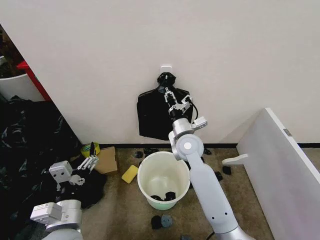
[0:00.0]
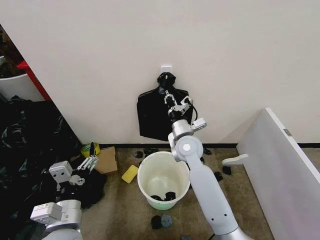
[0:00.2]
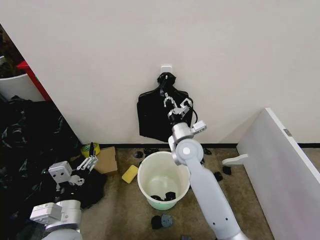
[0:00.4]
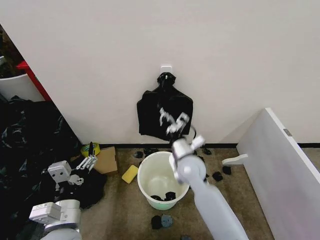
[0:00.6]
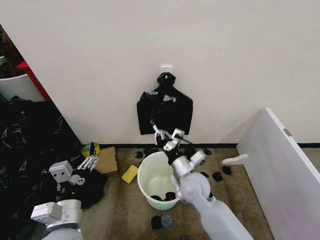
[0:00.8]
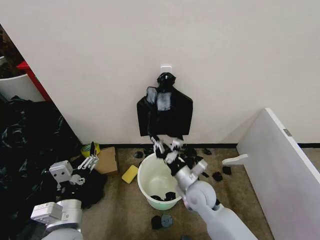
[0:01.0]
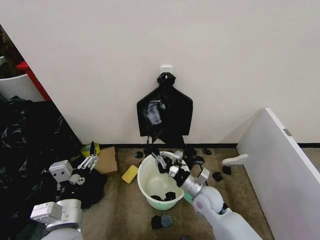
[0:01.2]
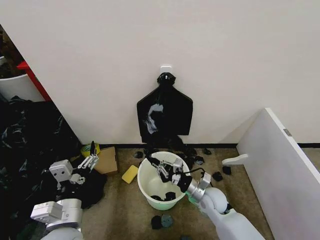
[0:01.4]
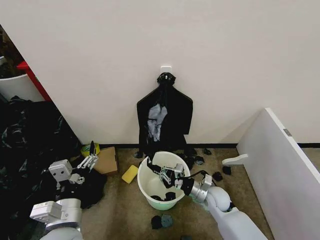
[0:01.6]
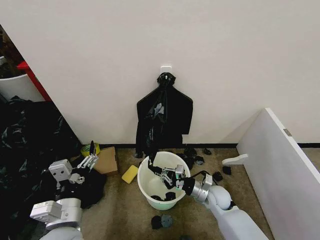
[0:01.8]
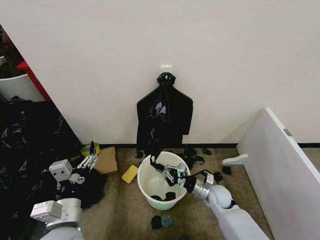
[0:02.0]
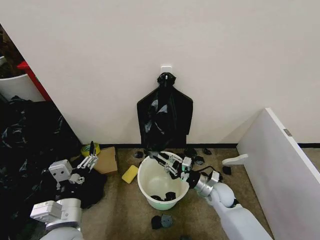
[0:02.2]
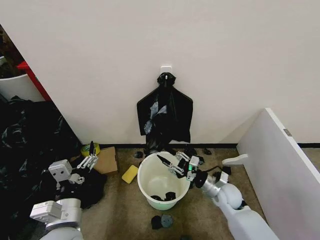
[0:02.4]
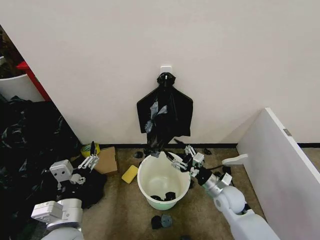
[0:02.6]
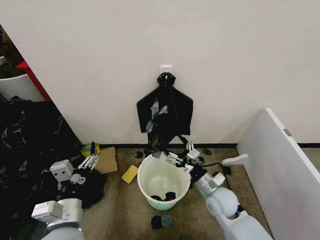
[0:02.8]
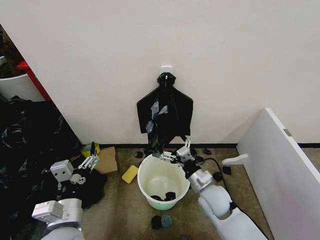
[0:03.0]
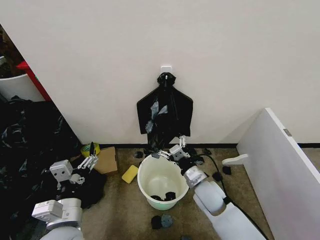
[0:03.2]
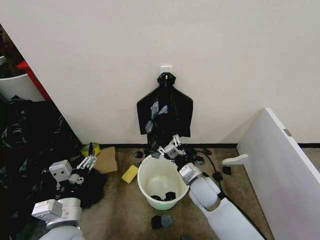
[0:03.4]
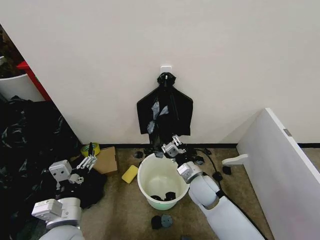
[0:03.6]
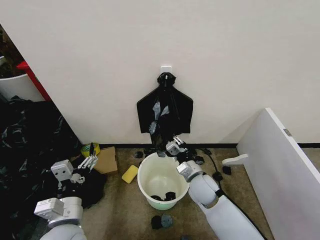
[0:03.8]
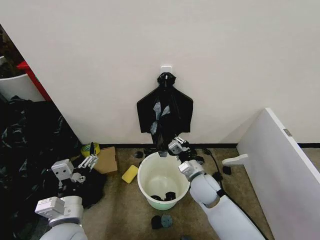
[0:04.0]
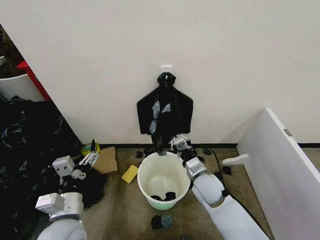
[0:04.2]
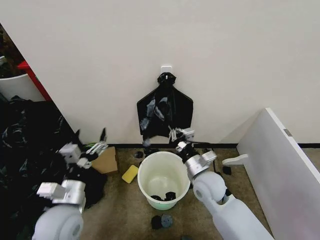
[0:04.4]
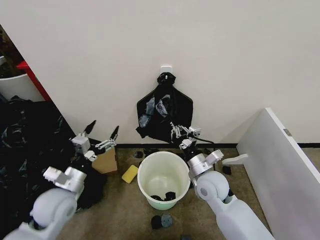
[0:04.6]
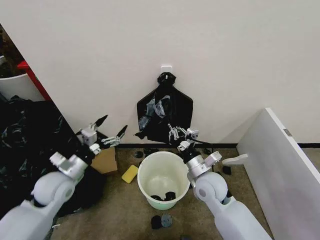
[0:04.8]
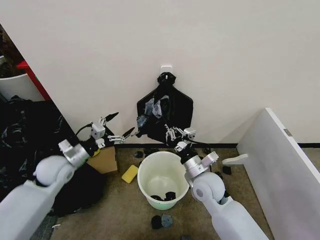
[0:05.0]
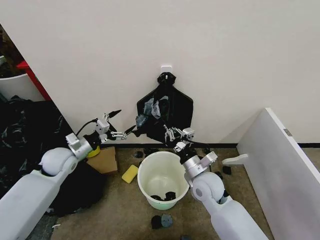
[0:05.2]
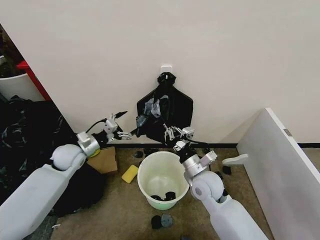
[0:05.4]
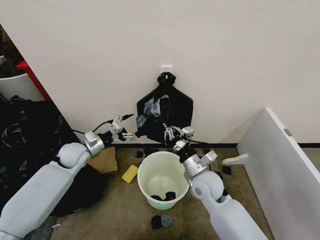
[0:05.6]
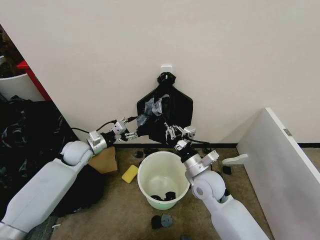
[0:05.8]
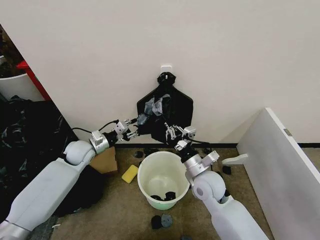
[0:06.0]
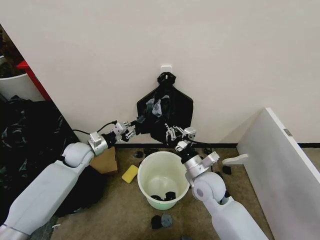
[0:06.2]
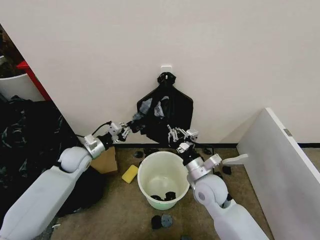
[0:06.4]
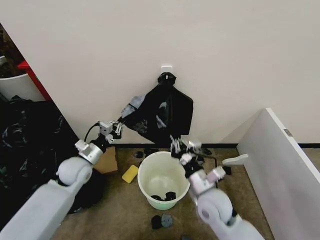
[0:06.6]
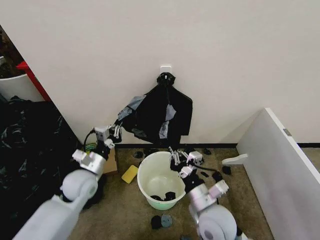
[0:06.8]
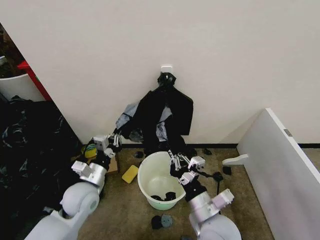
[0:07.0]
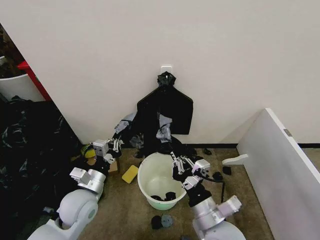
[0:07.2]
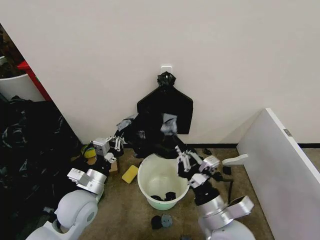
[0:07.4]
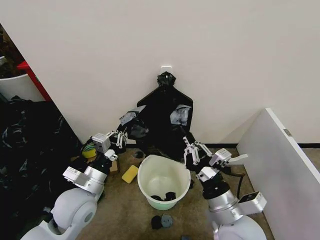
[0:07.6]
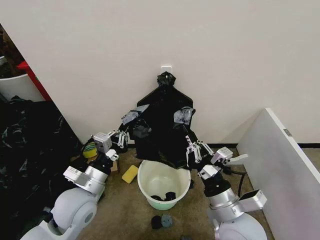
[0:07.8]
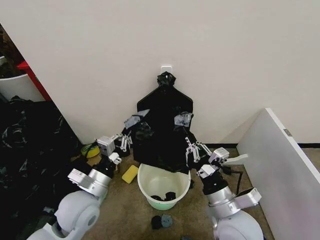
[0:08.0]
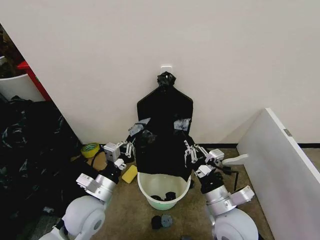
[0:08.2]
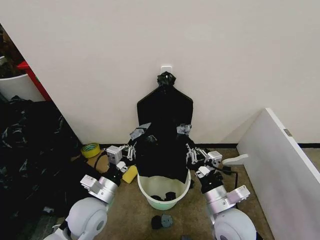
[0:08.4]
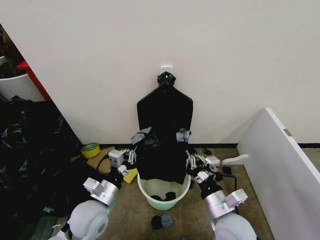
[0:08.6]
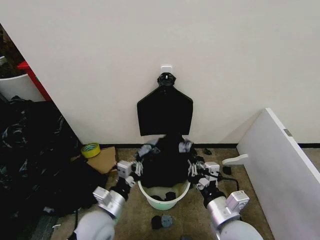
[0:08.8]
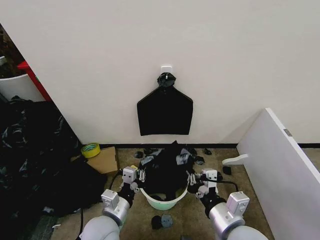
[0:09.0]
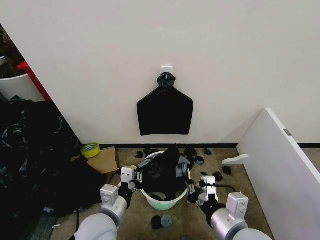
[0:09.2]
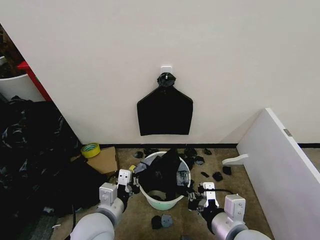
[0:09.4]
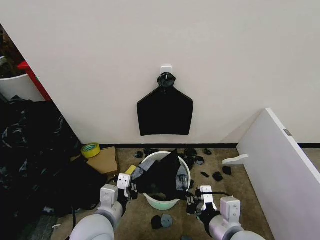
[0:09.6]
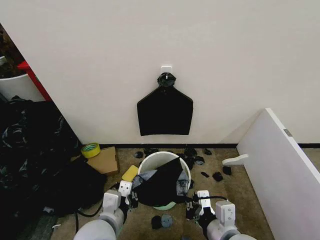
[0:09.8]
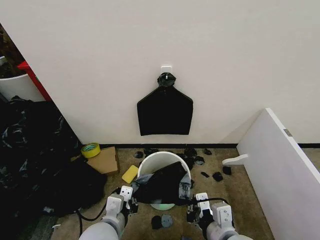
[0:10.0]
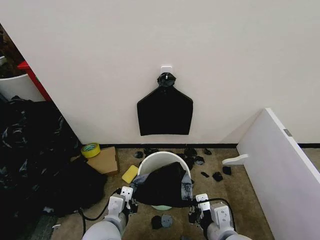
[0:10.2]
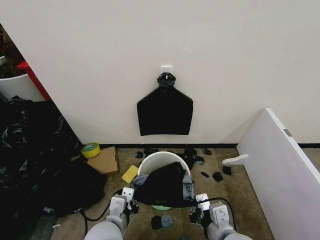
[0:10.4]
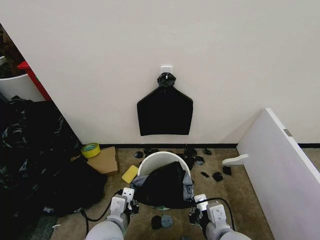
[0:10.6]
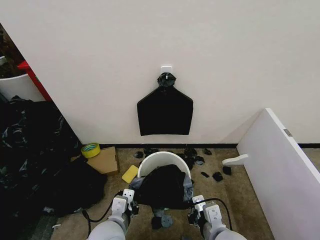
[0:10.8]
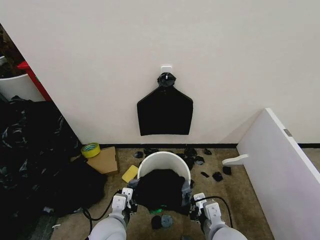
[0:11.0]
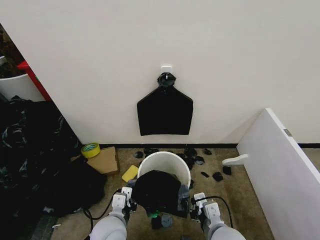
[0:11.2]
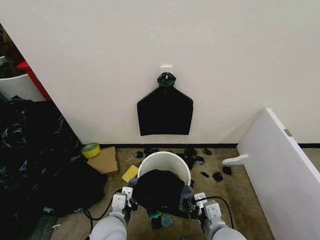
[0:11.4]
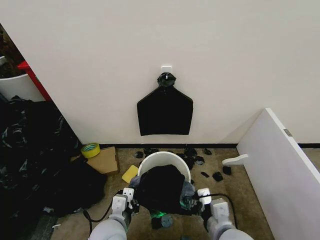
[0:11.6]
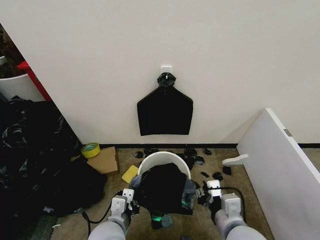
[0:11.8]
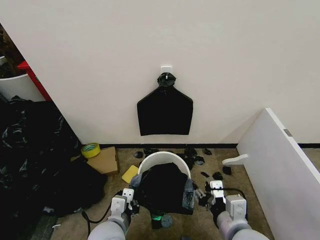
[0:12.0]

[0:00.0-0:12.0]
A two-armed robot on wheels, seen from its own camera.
Task of the whole recording: Place the garbage bag over the trash bin.
0:00.0 to 0:01.6: The right gripper shifts approximately 25 cm downward, to the right and backward.
0:01.6 to 0:03.0: The right gripper moves upward, some 5 cm, and opens its fingers.
0:03.0 to 0:04.4: The right gripper ends up about 5 cm from where it was, and closes up, while the left gripper moves approximately 5 cm.
0:04.4 to 0:06.0: The left gripper shifts about 25 cm forward, and closes its fingers.
0:06.0 to 0:07.6: The right gripper travels backward and upward by some 15 cm. Meanwhile the left gripper moves backward and to the right, approximately 20 cm, and closes.
0:07.6 to 0:09.0: The left gripper moves downward and to the right, some 10 cm.
0:10.4 to 0:12.0: The right gripper goes downward and returns, about 5 cm each way, and opens its fingers.

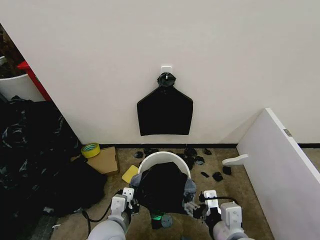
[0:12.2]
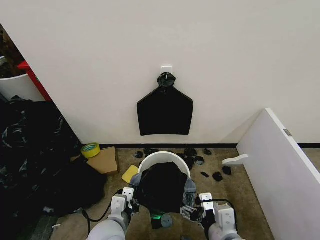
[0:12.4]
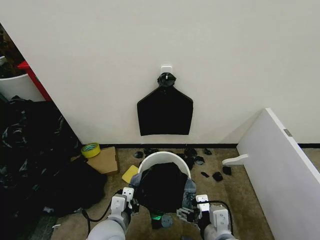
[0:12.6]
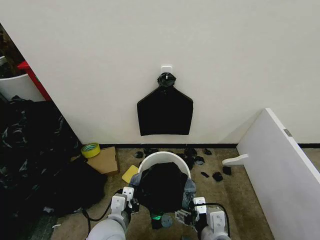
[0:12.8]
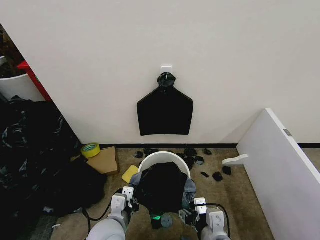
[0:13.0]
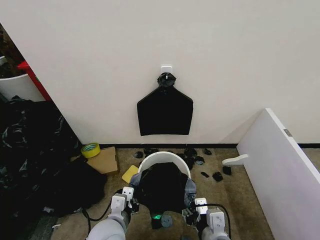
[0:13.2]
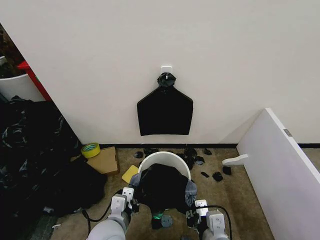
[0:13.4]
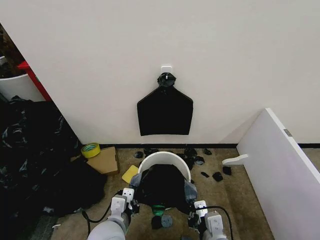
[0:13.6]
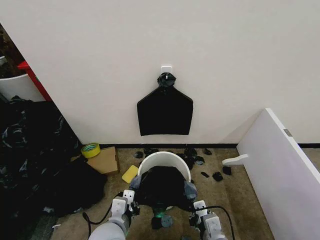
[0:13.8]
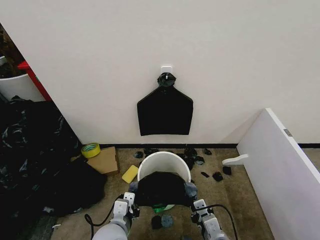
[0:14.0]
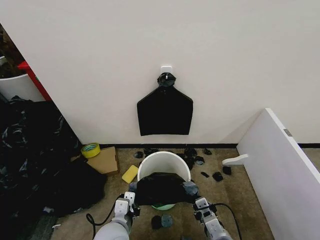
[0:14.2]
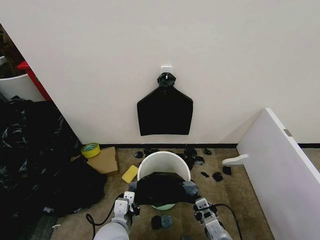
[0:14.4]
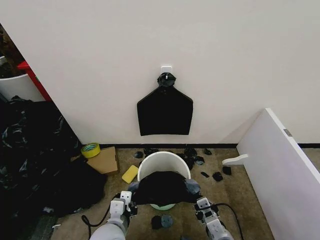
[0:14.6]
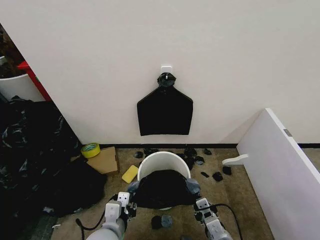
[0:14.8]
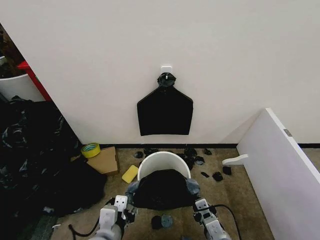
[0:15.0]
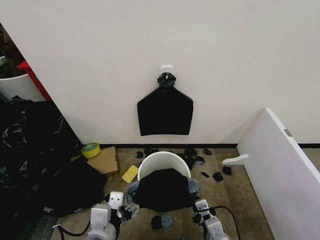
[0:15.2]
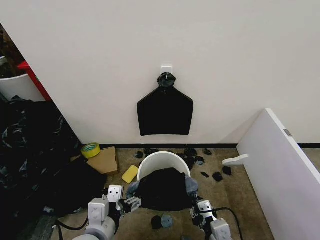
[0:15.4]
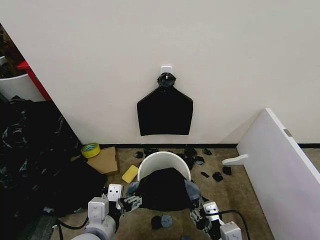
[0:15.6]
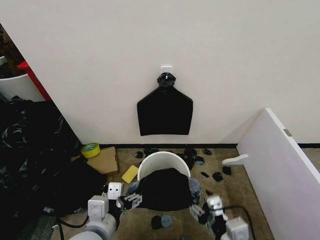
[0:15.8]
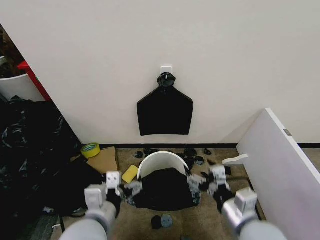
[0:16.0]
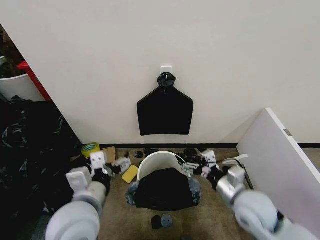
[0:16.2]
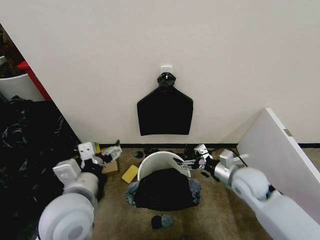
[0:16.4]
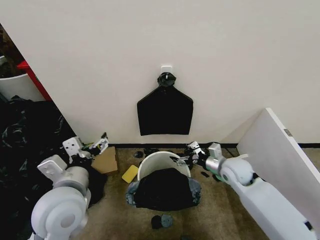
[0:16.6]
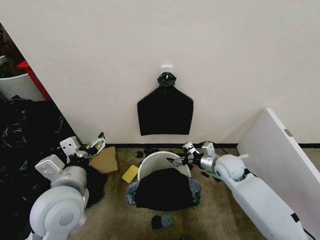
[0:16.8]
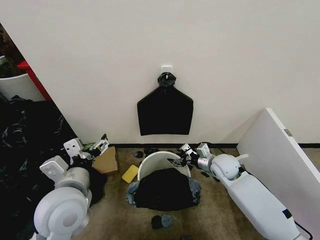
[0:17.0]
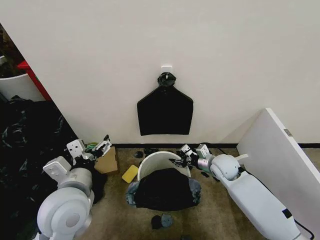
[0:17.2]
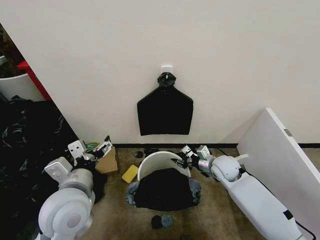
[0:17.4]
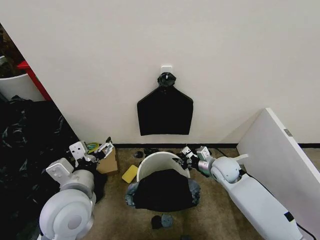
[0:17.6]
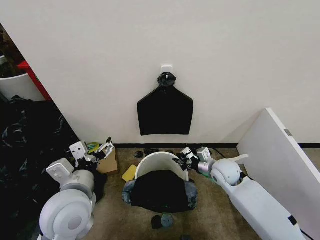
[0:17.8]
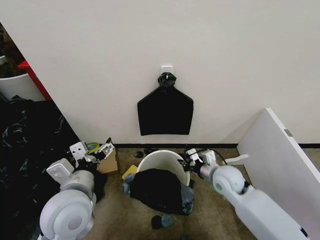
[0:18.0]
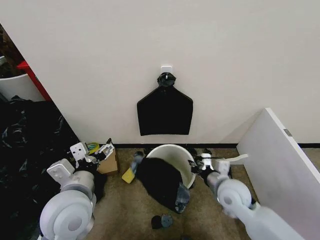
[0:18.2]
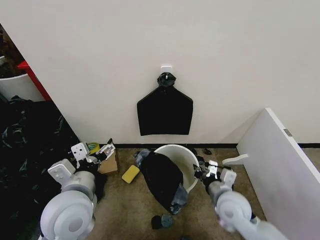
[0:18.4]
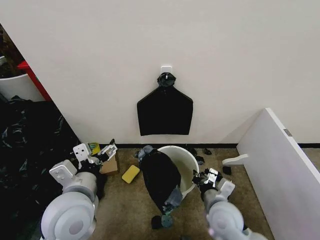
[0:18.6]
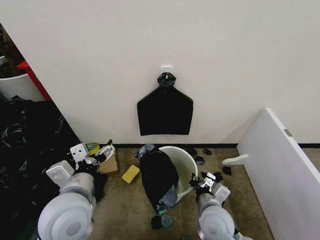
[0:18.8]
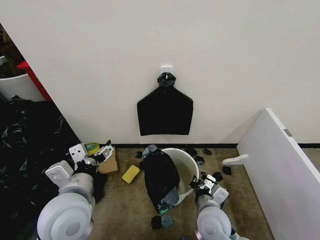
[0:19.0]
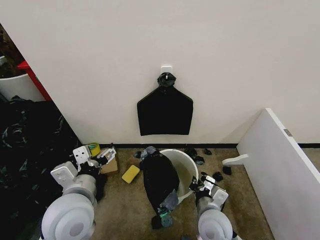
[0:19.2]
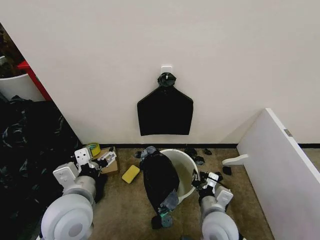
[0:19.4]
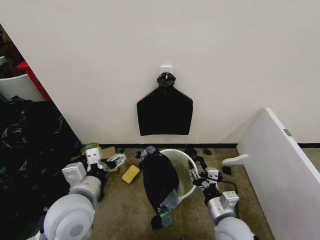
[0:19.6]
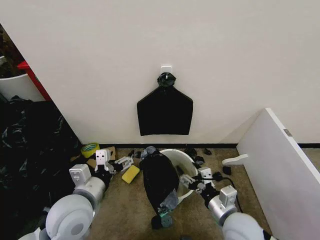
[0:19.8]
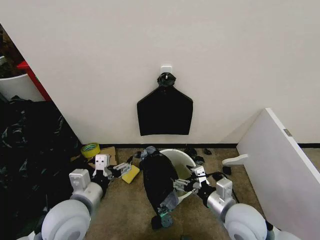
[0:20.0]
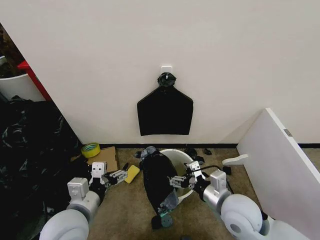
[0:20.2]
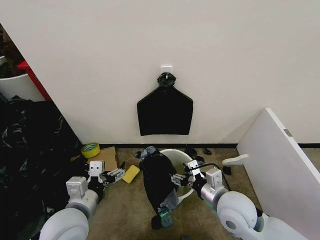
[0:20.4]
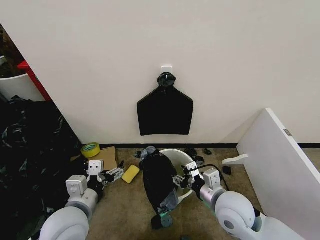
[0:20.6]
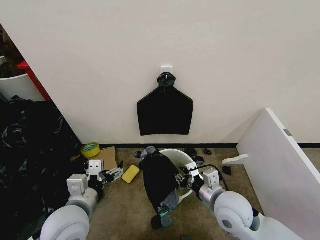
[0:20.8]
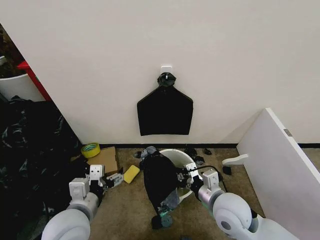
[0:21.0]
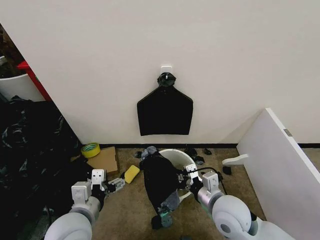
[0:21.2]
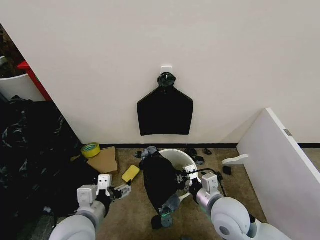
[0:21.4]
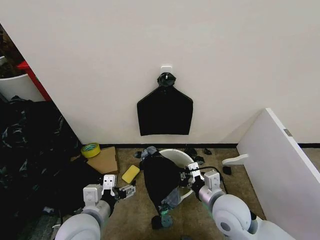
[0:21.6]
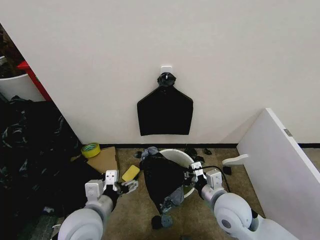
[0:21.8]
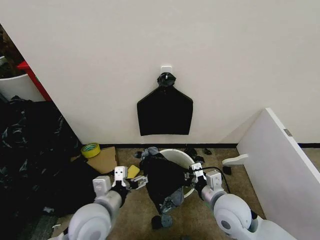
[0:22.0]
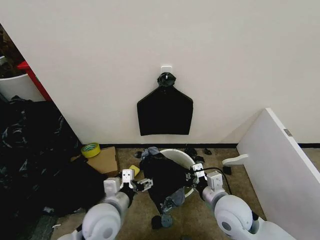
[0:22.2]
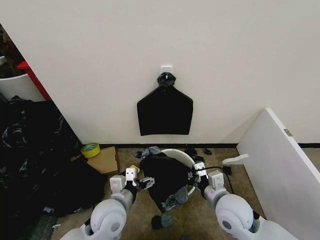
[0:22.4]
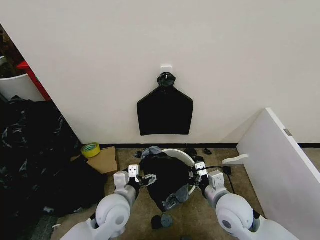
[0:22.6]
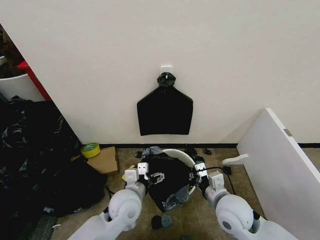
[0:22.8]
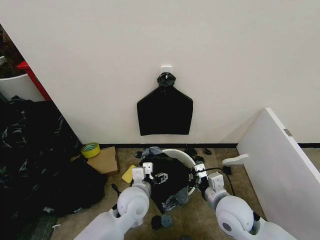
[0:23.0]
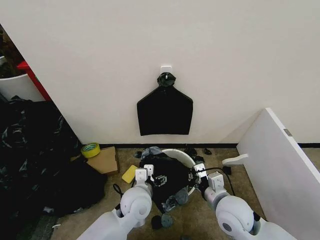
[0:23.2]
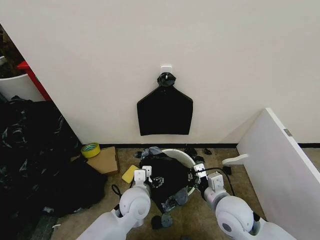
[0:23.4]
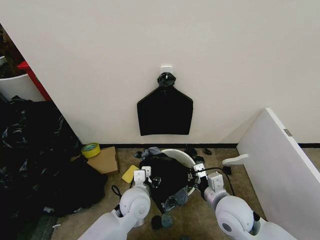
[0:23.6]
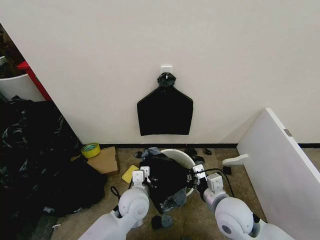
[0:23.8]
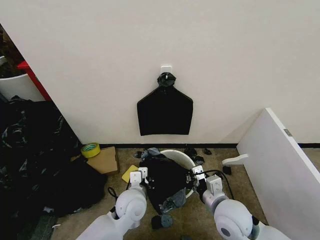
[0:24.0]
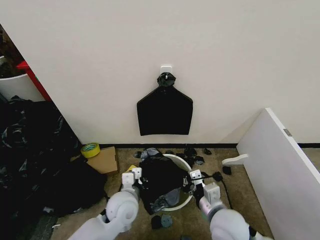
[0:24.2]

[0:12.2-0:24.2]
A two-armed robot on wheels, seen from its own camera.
Task of the whole recording: Place the garbage bag over the trash bin.
0:12.2 to 0:13.8: The right gripper shifts approximately 10 cm downward, and closes up.
0:13.8 to 0:15.2: The left gripper goes some 10 cm upward and backward, and opens up.
0:15.2 to 0:16.6: The right gripper travels forward by some 25 cm, and opens. Meanwhile the left gripper shifts approximately 10 cm forward and upward.
0:16.6 to 0:18.2: The right gripper shifts roughly 5 cm backward, and closes its fingers.
0:18.2 to 0:19.8: The right gripper shifts about 10 cm backward, and opens its fingers.
0:19.8 to 0:21.2: The right gripper ends up about 5 cm from where it was, and closes up.
0:21.2 to 0:22.6: The left gripper moves to the right, forward and downward, approximately 10 cm.
0:22.6 to 0:24.2: The right gripper moves approximately 5 cm. The left gripper closes.
